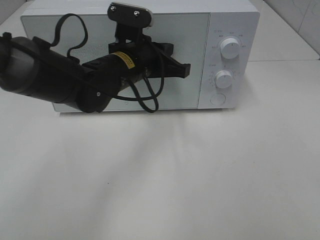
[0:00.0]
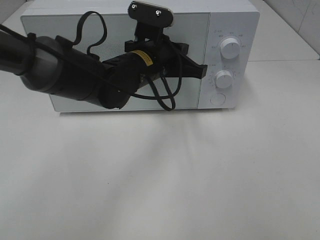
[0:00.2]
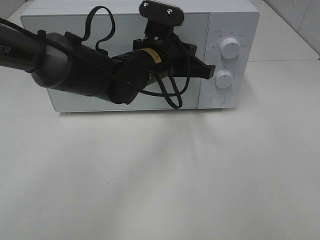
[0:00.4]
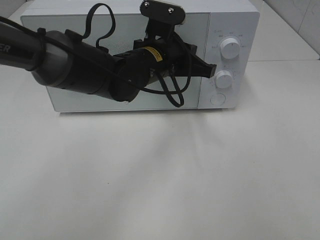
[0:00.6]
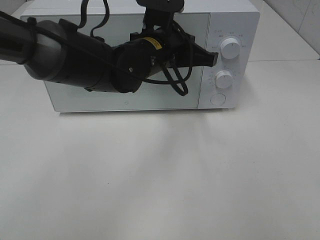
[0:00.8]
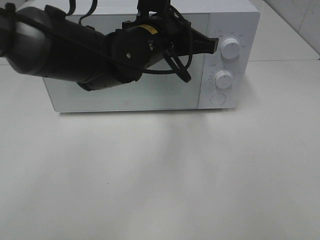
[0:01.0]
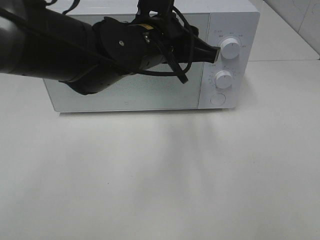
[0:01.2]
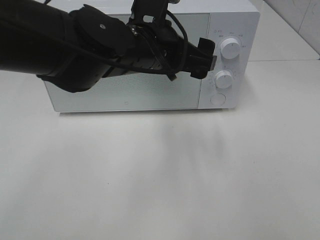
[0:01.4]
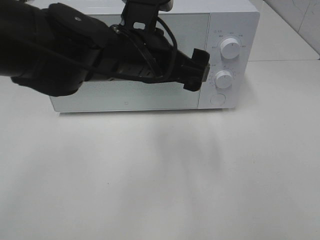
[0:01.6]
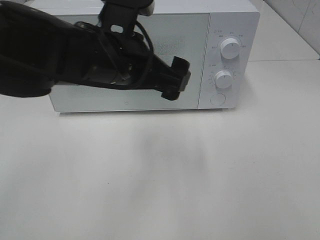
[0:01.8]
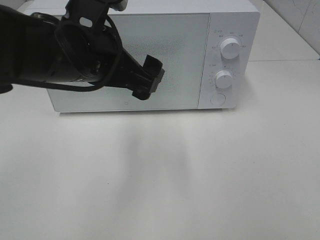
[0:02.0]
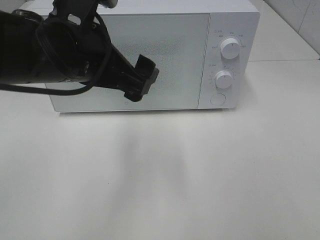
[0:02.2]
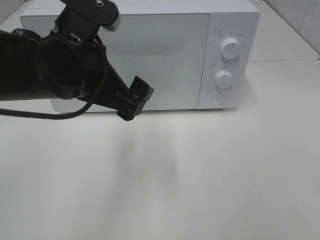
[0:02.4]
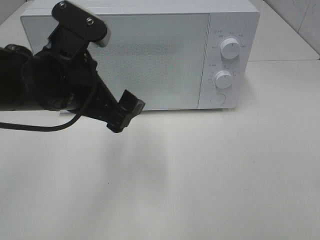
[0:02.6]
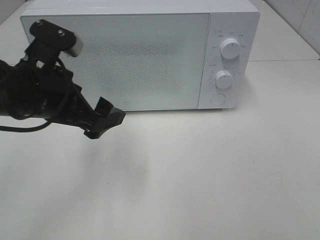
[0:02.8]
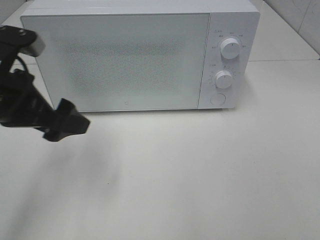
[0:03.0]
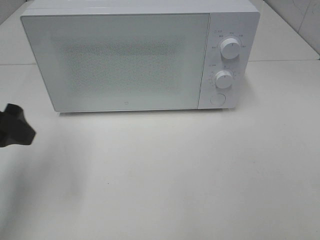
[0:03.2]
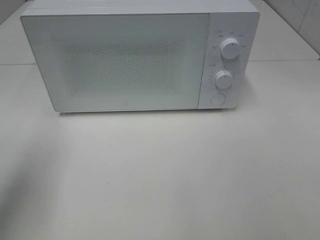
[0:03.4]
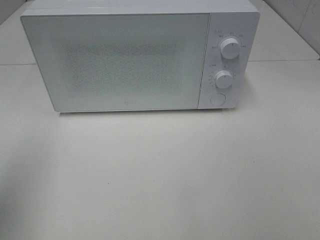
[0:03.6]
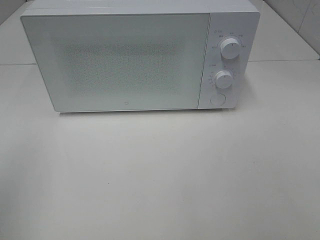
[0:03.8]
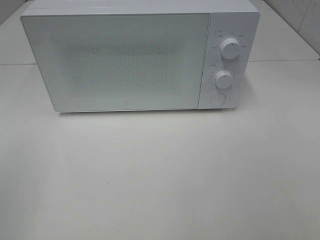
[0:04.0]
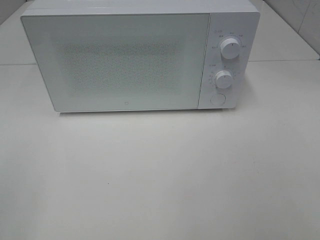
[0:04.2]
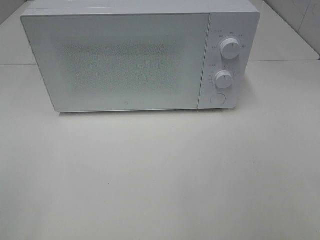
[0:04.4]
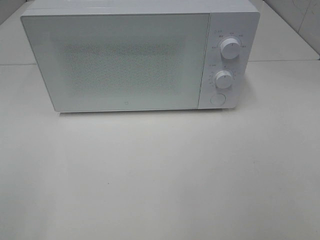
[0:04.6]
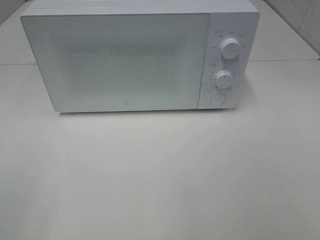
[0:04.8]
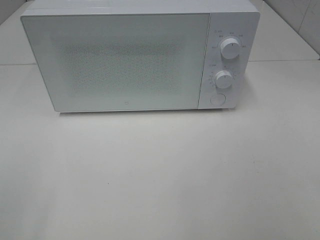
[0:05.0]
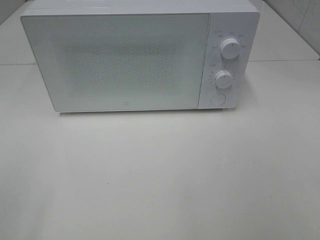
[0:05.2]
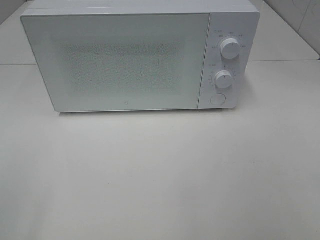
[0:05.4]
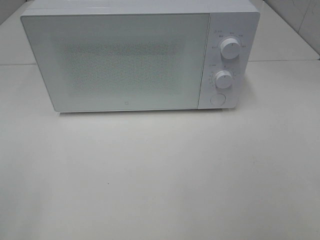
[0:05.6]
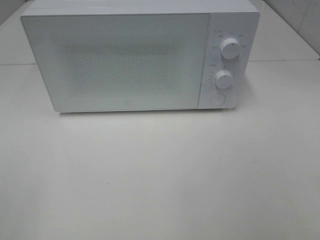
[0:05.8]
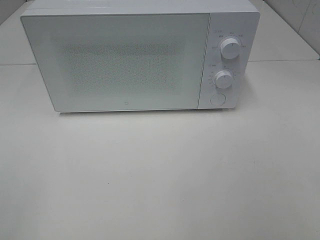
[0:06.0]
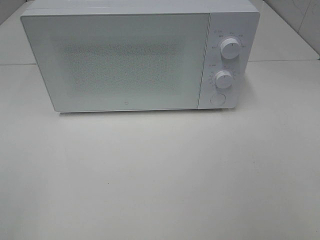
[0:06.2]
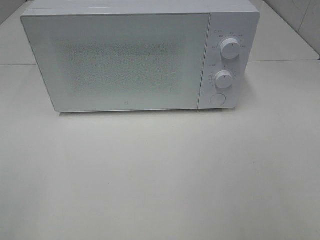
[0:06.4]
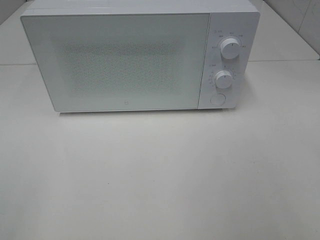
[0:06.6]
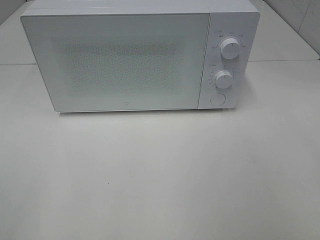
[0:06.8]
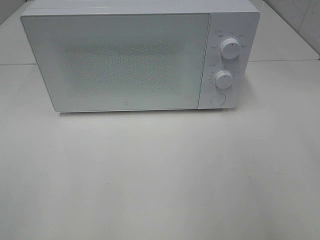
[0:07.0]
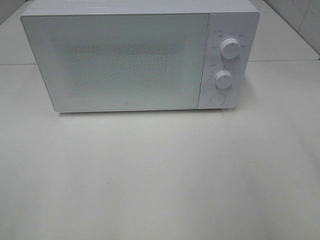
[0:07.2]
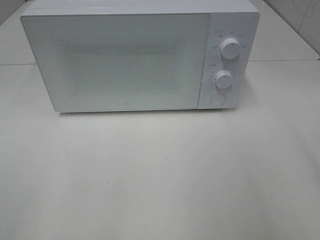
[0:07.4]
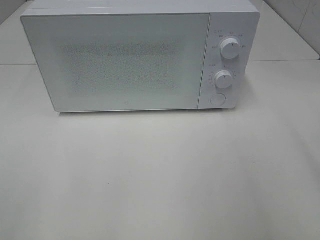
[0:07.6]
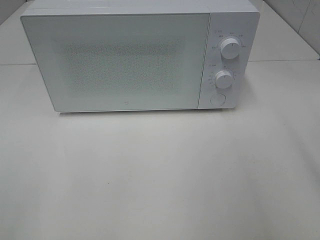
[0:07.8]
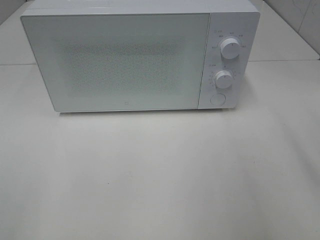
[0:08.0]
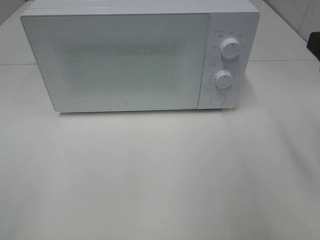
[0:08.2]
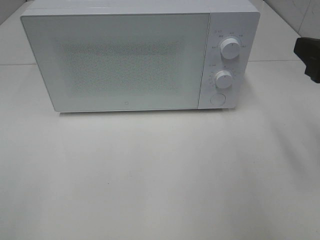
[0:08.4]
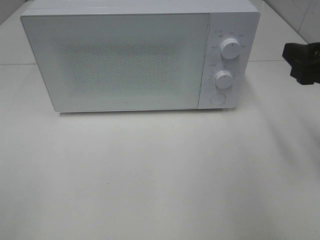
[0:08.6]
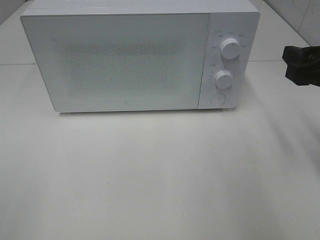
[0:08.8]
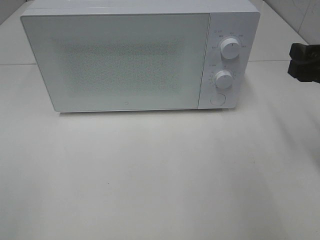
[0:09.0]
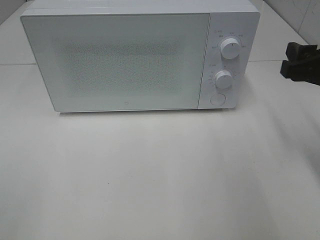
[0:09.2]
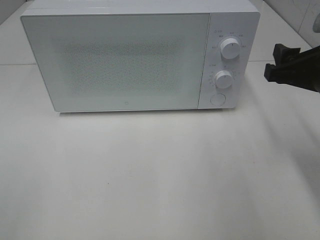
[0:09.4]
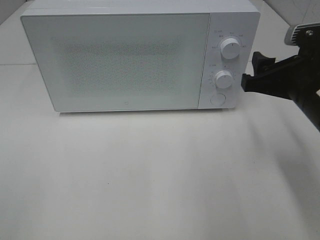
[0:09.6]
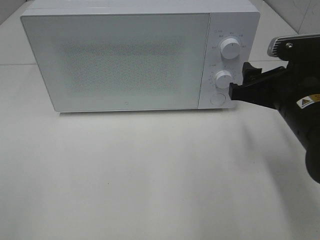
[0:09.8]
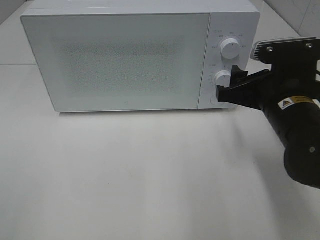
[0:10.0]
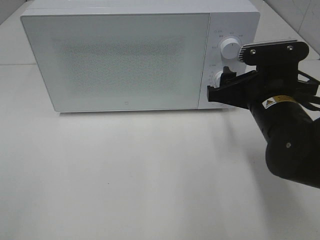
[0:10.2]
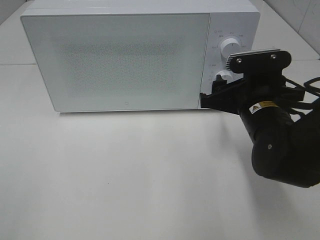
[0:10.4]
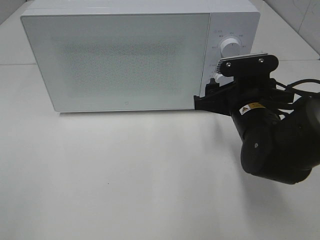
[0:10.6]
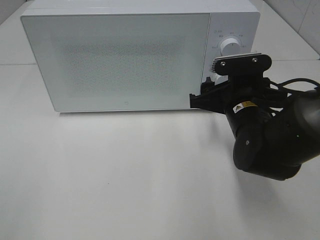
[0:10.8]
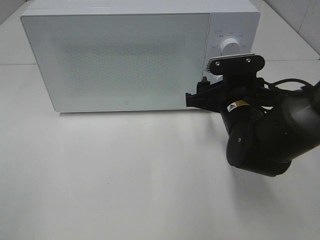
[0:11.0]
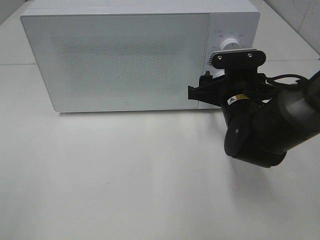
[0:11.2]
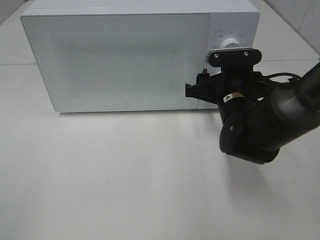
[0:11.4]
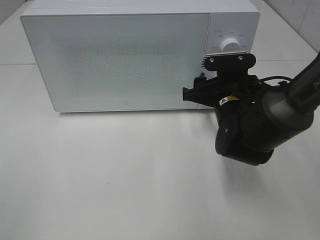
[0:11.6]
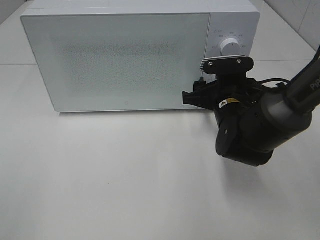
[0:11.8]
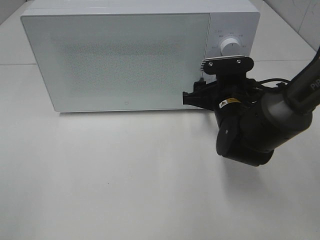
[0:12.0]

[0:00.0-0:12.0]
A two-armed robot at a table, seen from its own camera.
Task of the whole recording: Heat the burger.
0:00.0 to 0:01.6: The left gripper goes approximately 10 cm backward and upward, and opens its fingers.
0:01.6 to 0:03.0: The left gripper moves to the left, approximately 15 cm.
0:03.0 to 0:04.4: The left gripper travels backward and to the left by about 25 cm.
0:07.6 to 0:09.0: The right gripper heads forward and downward, covering roughly 15 cm.
0:09.0 to 0:10.4: The right gripper heads to the left and downward, covering roughly 15 cm.
0:10.4 to 0:12.0: The right gripper moves forward, some 5 cm.

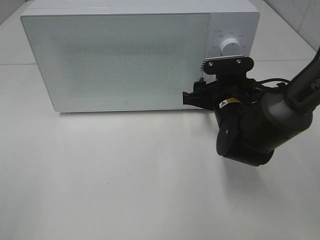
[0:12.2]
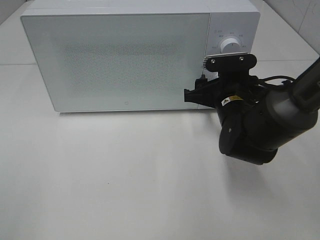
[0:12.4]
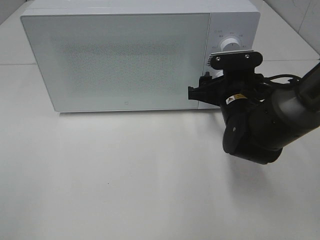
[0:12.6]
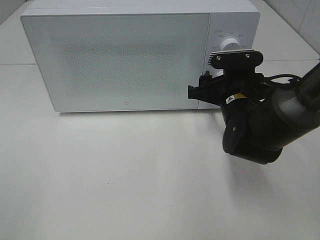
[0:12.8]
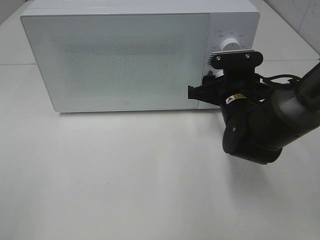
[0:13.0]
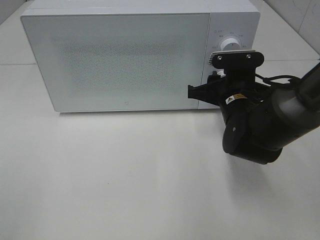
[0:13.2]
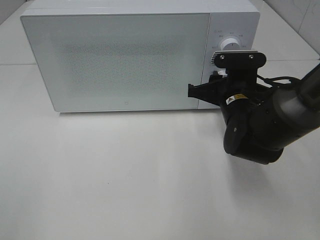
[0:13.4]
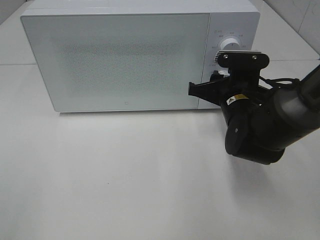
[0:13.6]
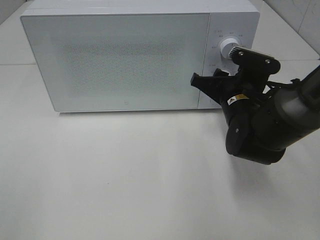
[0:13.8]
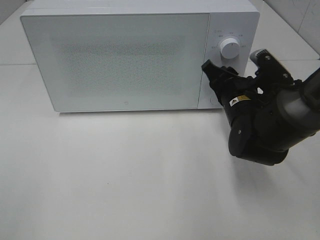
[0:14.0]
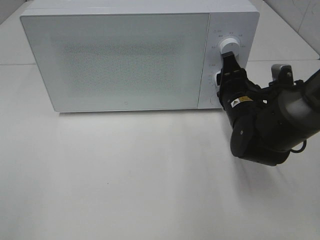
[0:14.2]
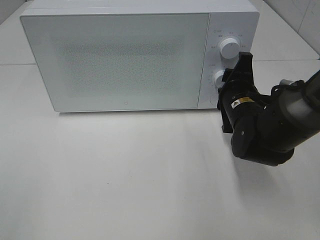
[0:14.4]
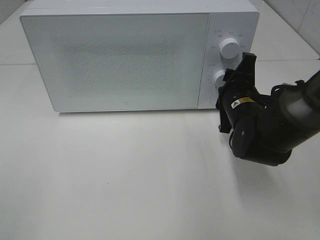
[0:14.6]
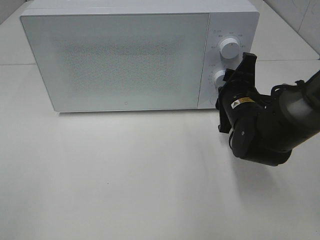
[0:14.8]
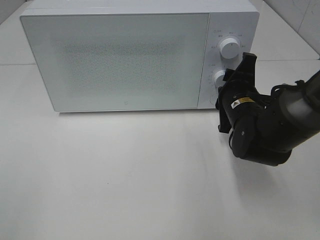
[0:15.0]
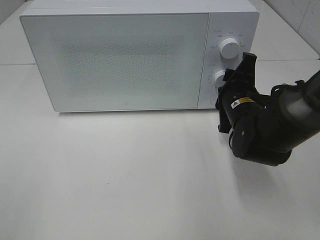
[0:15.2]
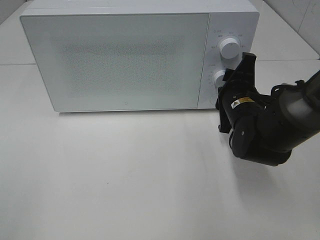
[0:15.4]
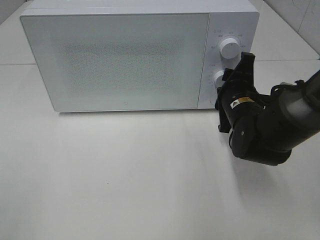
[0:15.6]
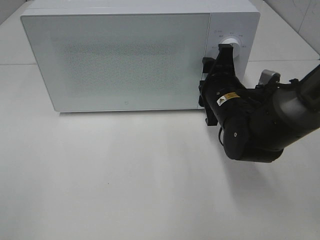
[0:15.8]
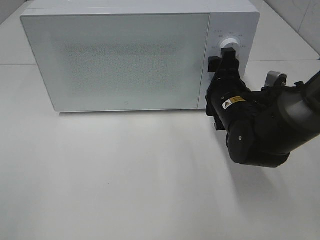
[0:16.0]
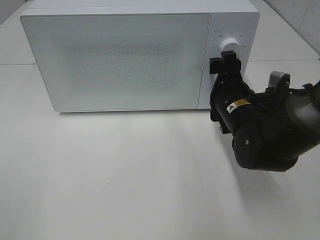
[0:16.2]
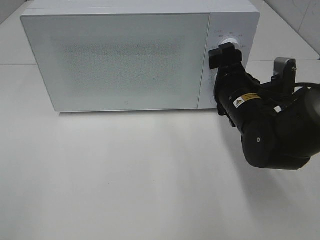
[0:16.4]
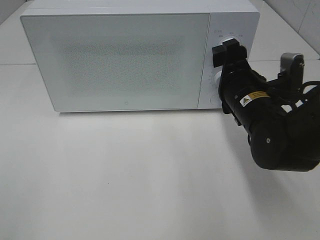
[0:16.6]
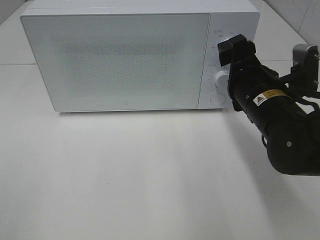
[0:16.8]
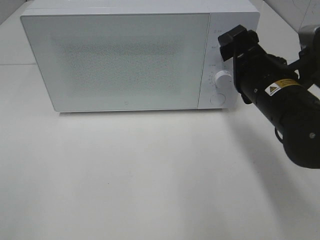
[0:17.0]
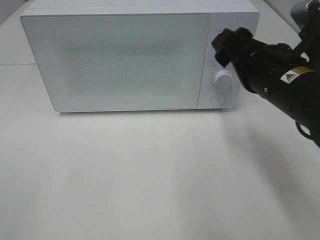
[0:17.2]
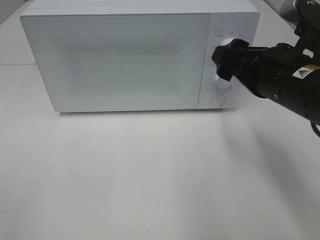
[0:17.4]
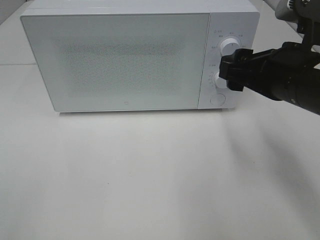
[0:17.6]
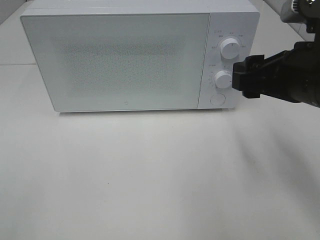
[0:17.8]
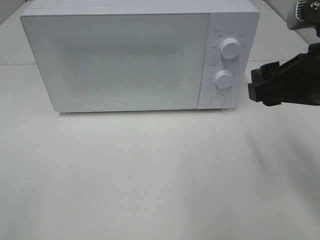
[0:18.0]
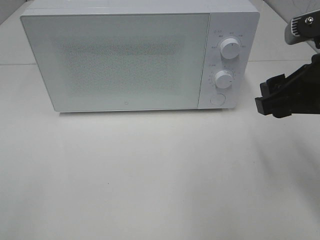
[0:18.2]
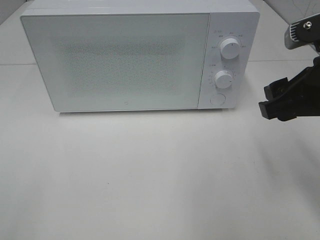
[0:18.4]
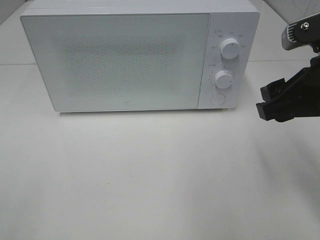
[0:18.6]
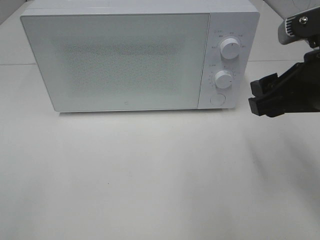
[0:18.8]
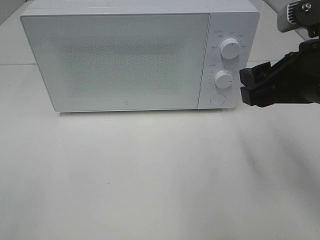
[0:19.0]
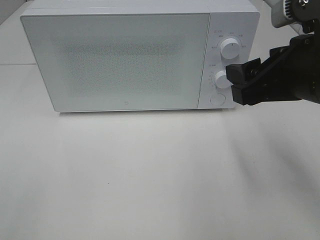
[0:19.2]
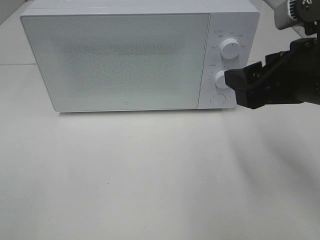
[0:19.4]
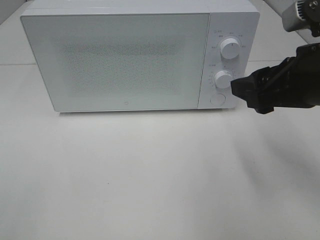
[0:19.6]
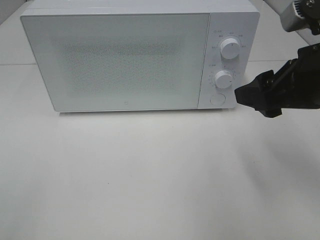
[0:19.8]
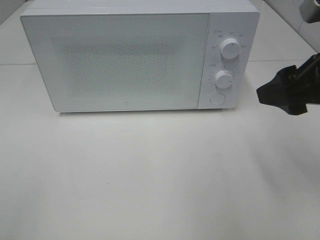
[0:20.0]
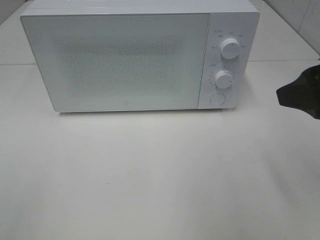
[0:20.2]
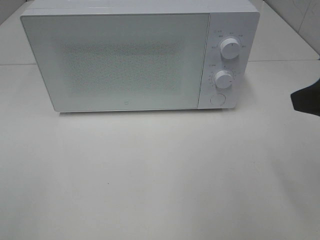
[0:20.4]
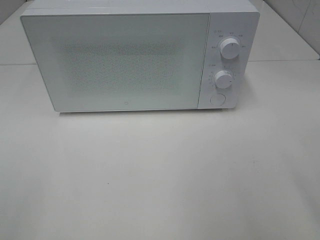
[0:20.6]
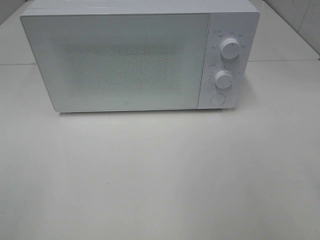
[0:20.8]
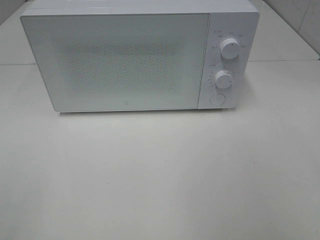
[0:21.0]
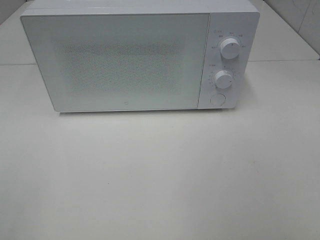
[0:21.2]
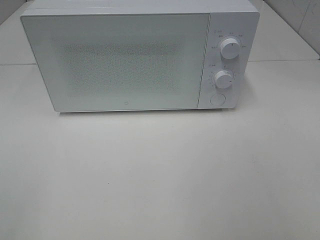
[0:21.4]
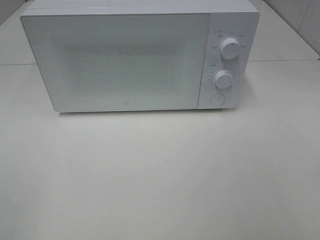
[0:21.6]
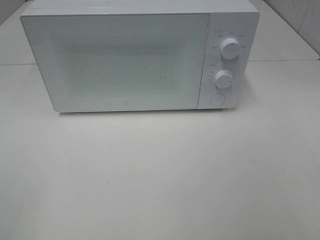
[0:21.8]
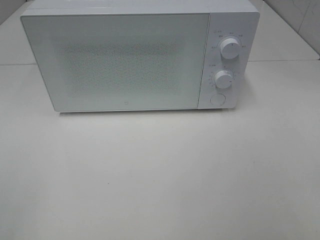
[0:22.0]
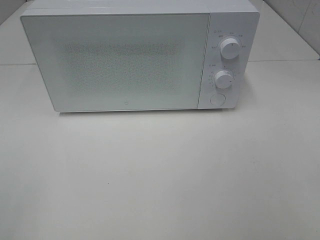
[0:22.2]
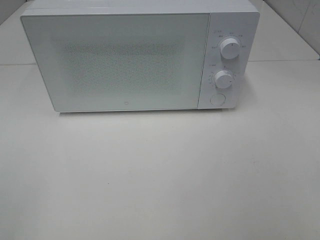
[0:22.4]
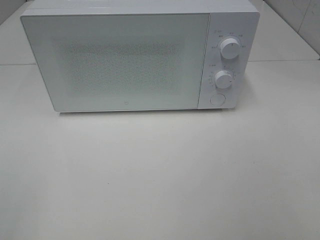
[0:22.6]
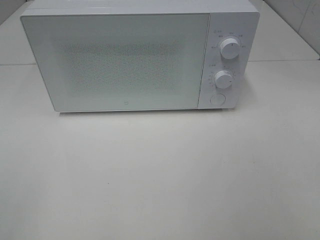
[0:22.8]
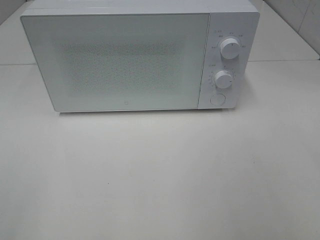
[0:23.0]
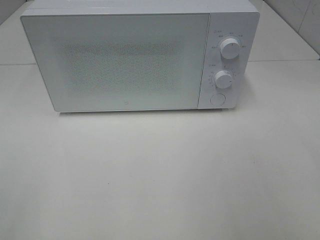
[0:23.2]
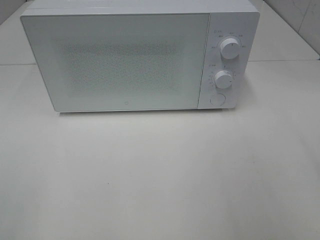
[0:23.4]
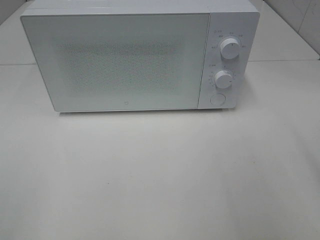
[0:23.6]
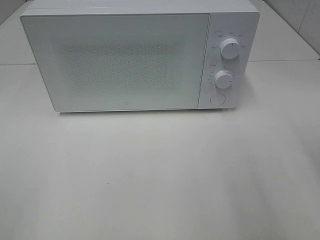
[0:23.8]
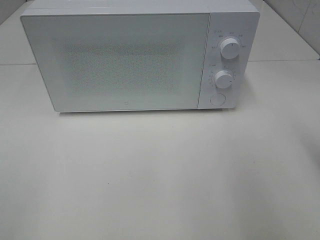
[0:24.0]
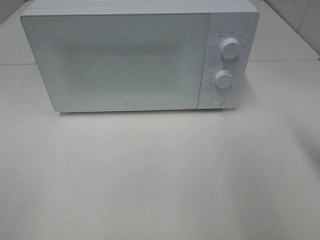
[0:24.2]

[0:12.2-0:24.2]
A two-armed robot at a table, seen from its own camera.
Task of the whole recording: Heat the burger.
Step, 0:12.2 to 0:15.6: Right hand: twist timer button.
0:12.2 to 0:13.8: The right gripper closes.
0:15.2 to 0:16.6: The right gripper changes place by approximately 5 cm, and opens.
0:16.6 to 0:18.2: The right gripper goes about 15 cm upward, backward and to the right.
0:19.8 to 0:21.2: The right gripper heads backward and to the right, covering some 20 cm.
